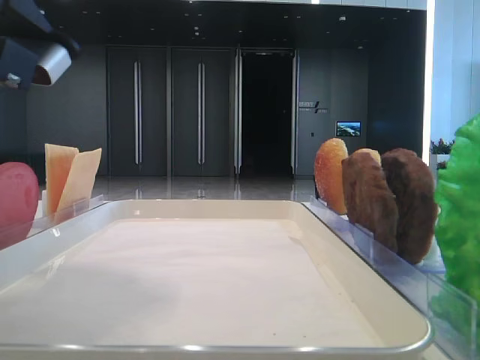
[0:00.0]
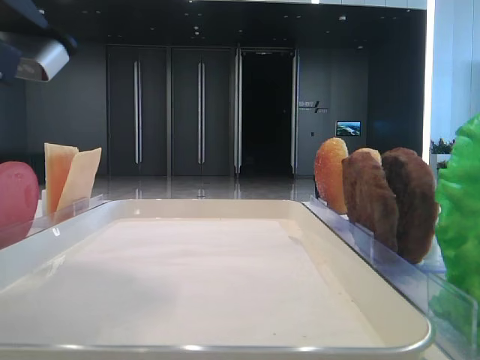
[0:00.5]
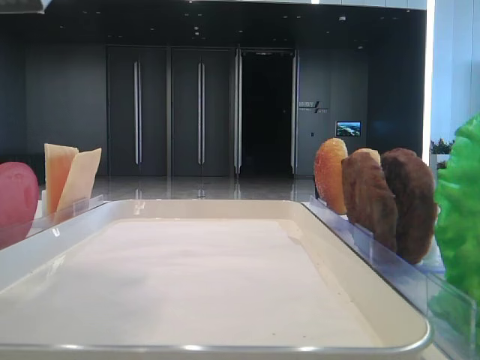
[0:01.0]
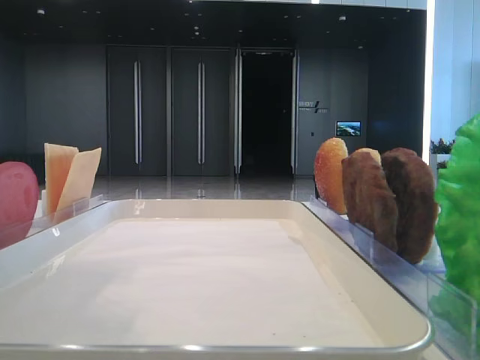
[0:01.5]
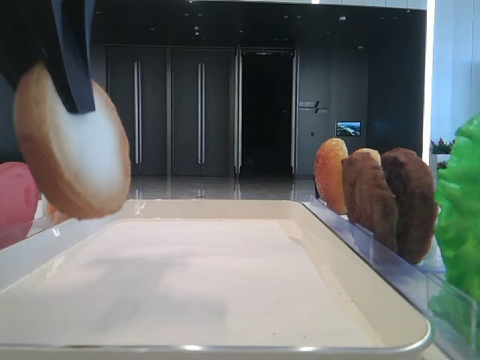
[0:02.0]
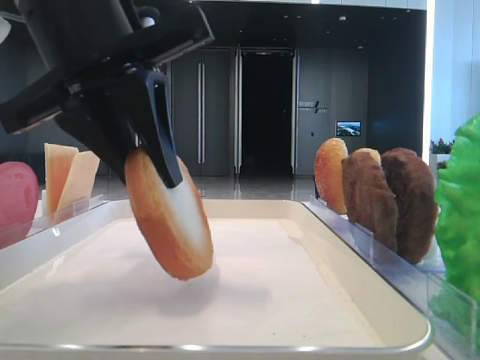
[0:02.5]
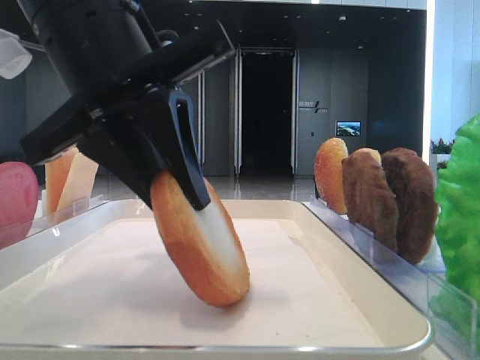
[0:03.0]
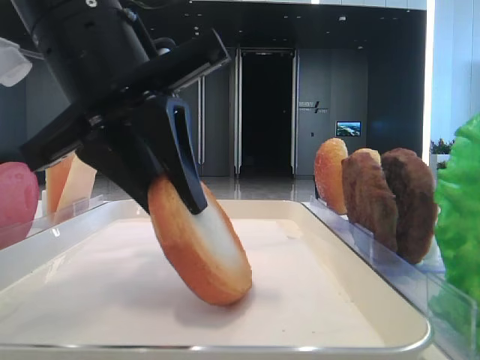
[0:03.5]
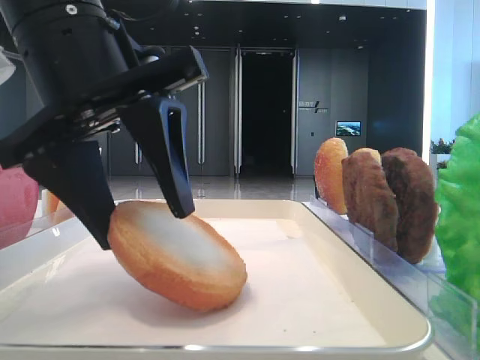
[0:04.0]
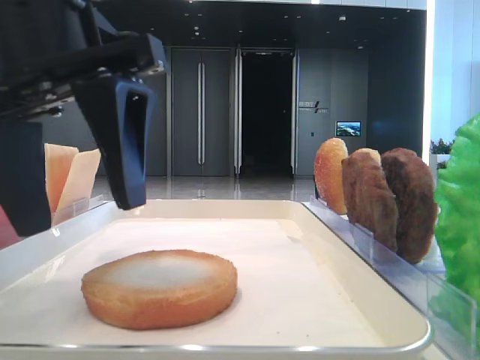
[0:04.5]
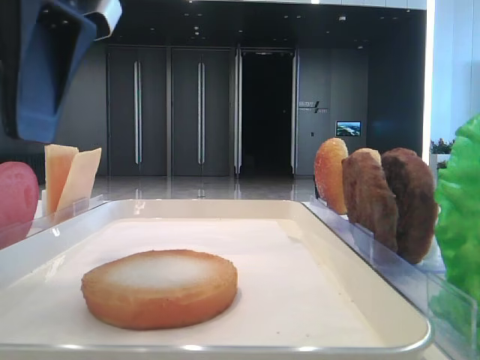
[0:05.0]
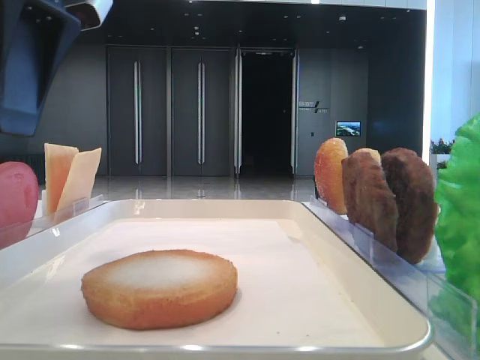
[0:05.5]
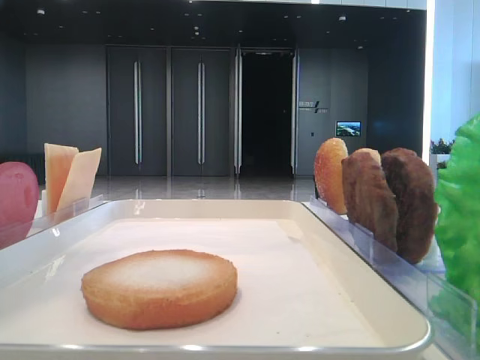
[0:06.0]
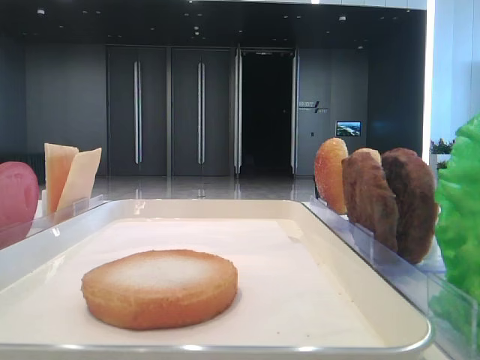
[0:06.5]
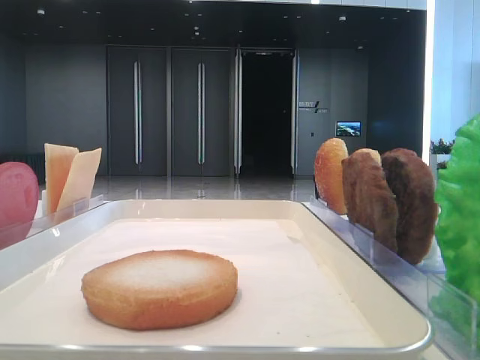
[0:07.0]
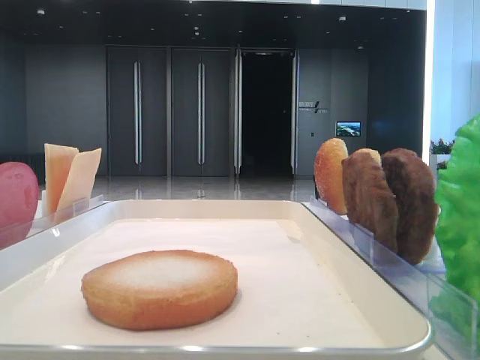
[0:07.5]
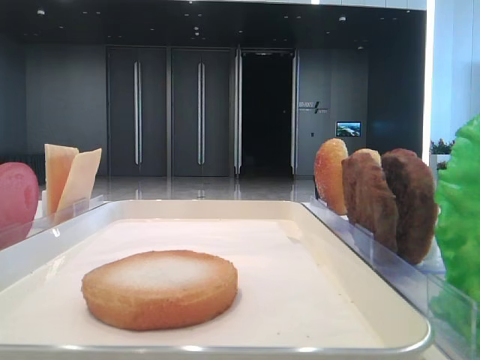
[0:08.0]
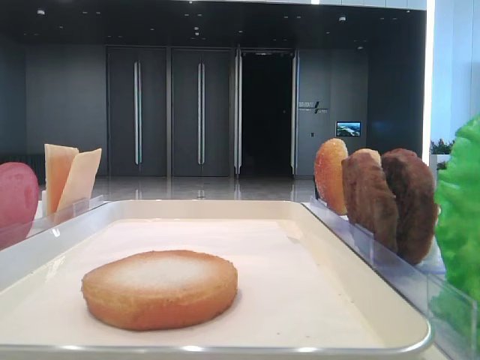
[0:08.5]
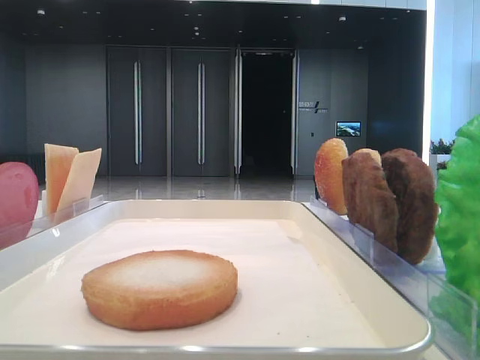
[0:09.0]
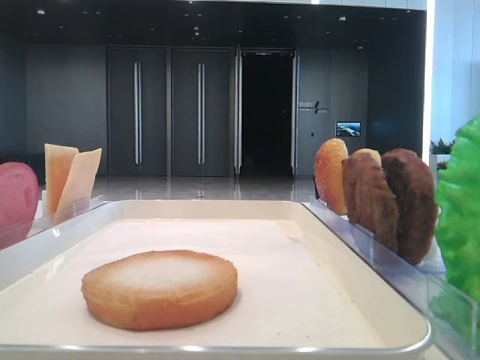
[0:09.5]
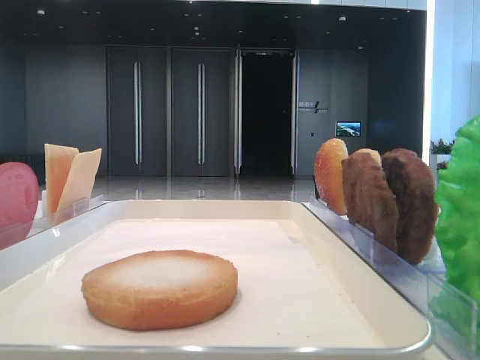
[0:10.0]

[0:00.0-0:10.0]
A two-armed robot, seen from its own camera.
Step, 0:00.5 to 0:04.0: Place the bread on the tray with the left hand.
0:00.0 to 0:02.0: The left gripper heads upward, covering roughly 5 cm.
0:02.0 to 0:04.0: The left gripper is displaced downward by some 10 cm, and opens its fingers.
0:04.0 to 0:06.0: The left gripper is displaced upward and to the left by roughly 15 cm.
0:06.0 to 0:08.0: The left gripper heads backward and to the left, covering about 30 cm.

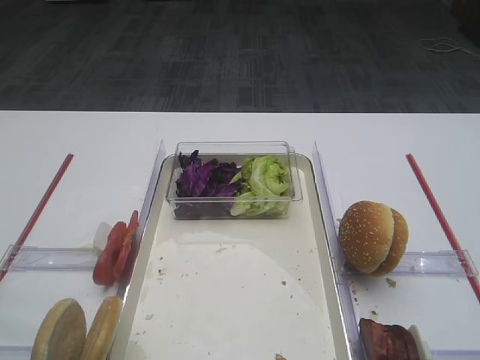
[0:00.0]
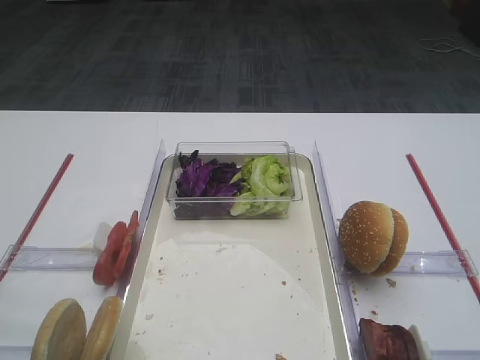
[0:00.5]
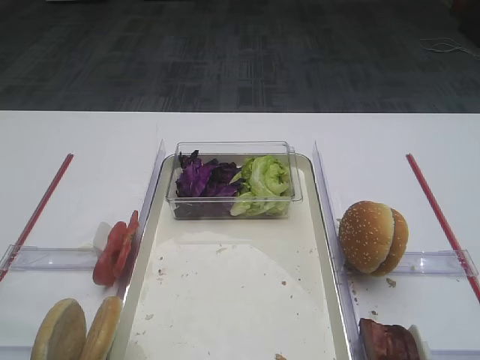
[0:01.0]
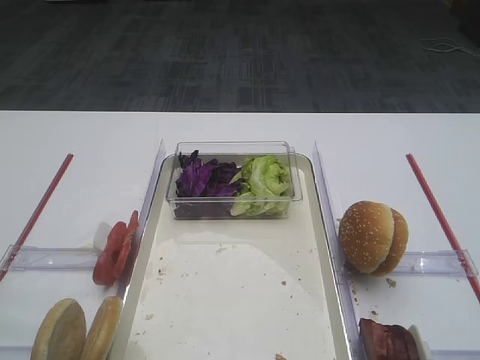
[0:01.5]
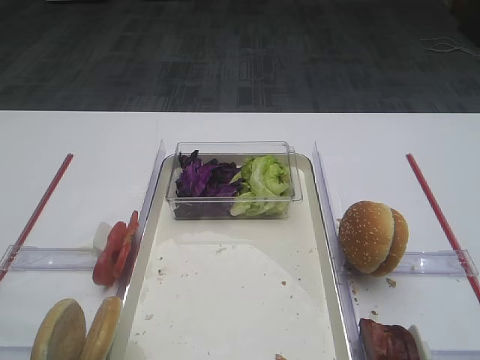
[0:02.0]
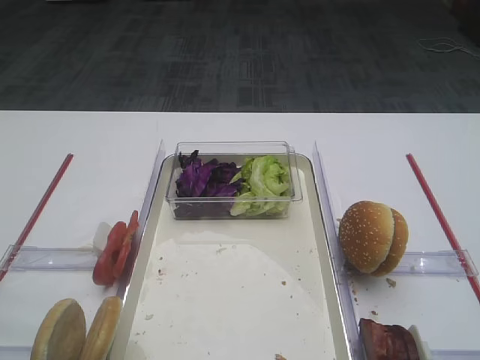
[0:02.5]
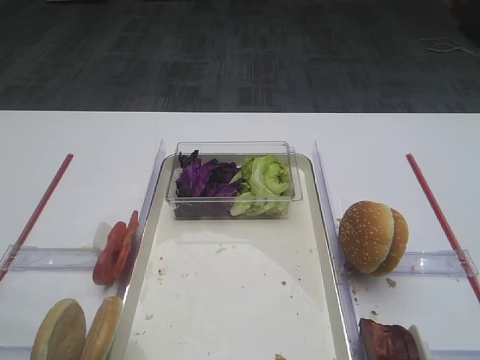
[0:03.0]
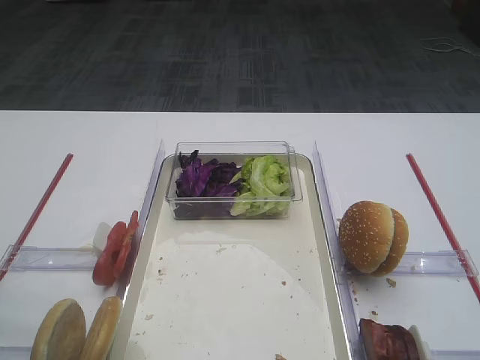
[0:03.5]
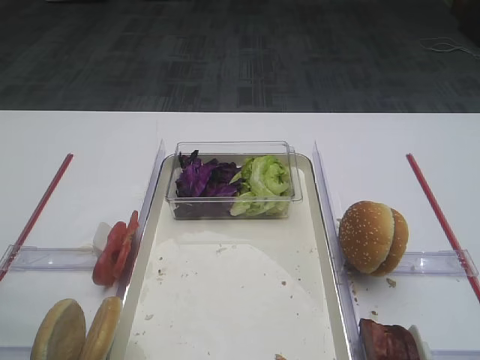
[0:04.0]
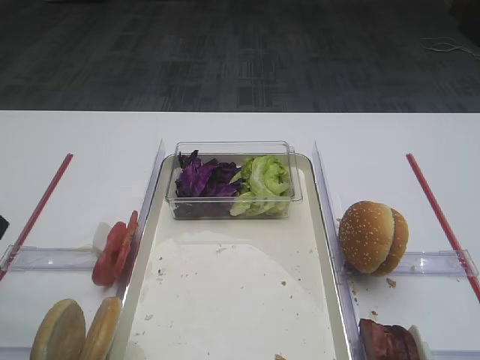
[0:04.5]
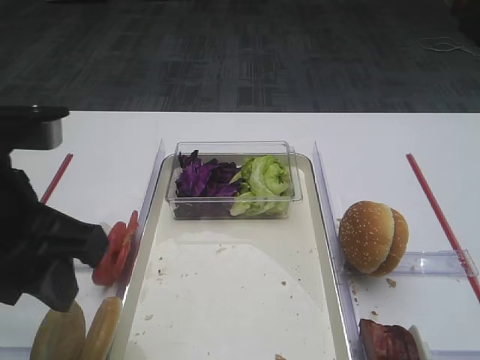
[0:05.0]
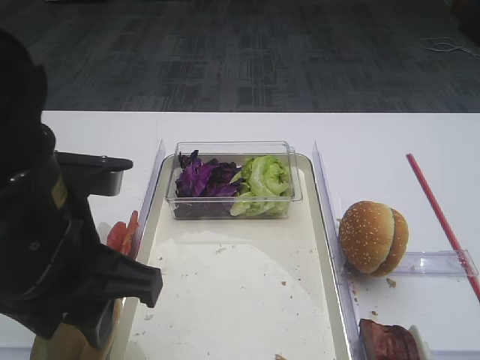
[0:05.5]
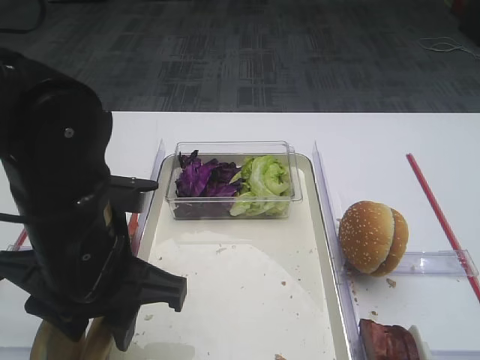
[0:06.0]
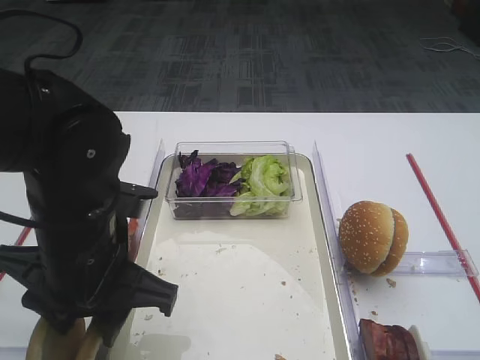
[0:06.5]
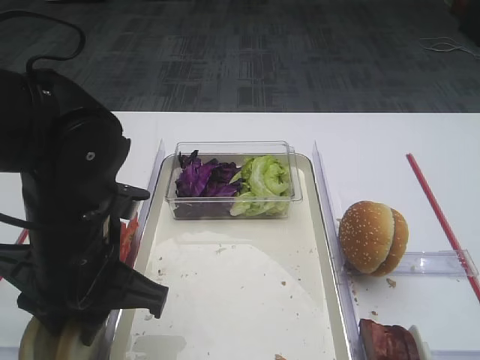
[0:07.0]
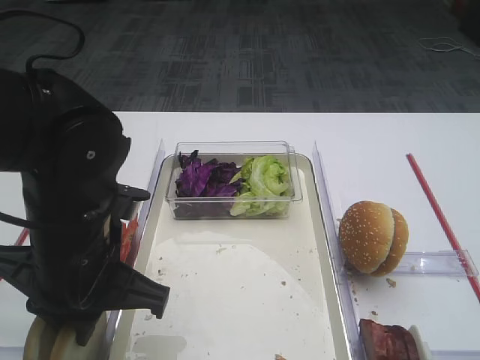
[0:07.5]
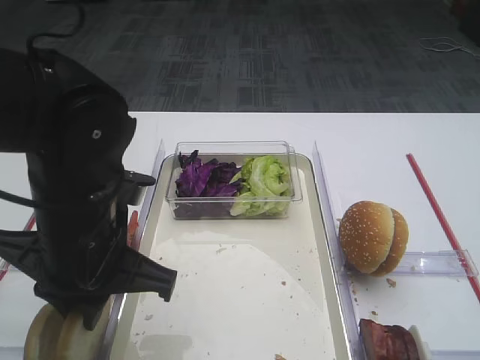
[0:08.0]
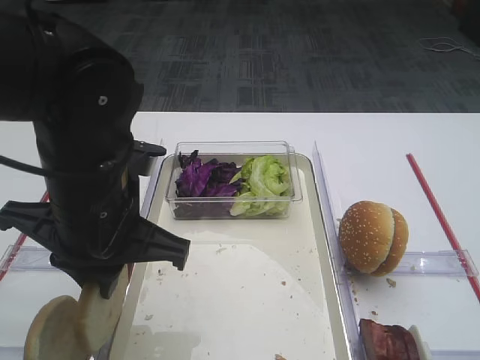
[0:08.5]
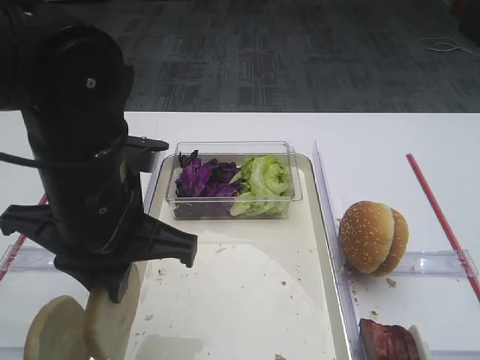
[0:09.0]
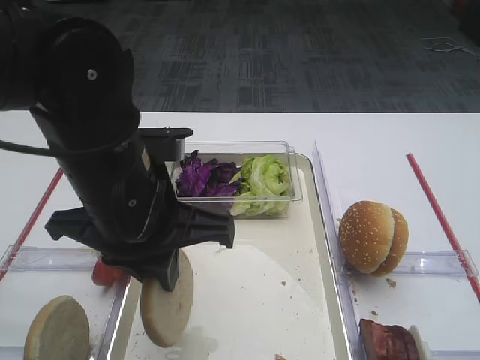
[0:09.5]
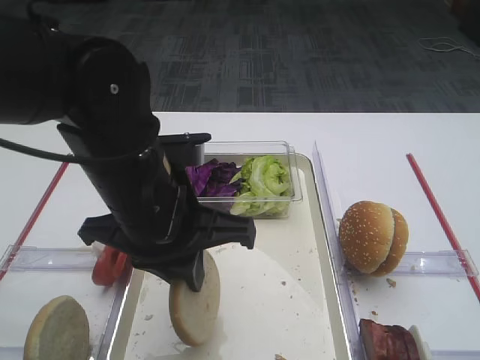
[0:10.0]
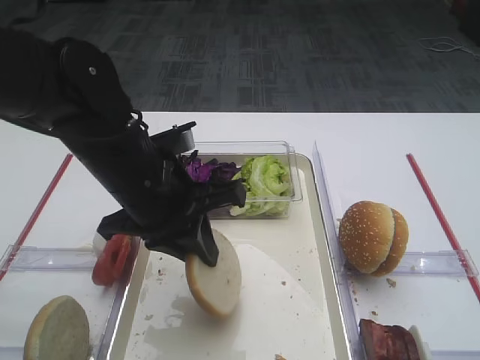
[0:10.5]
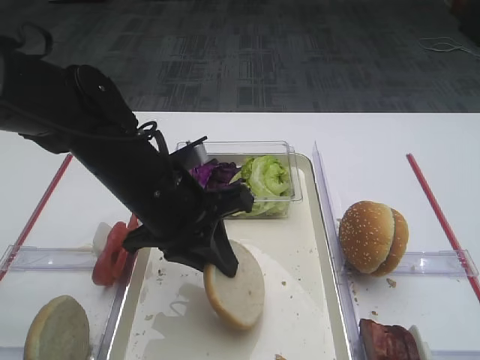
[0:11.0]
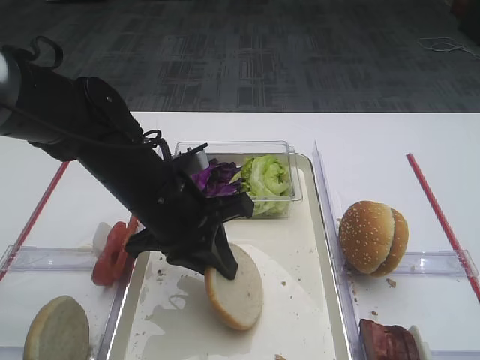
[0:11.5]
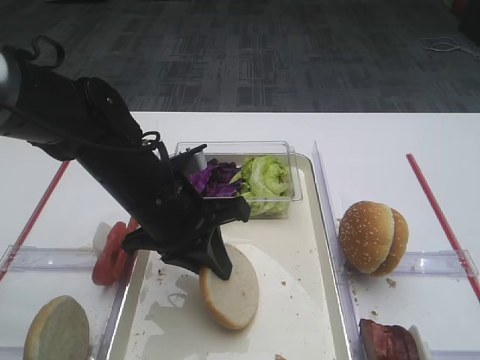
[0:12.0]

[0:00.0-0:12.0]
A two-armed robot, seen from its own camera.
Step, 0:00.0 to 0:08.5: Pick up the bread slice with the left gripper.
0:04.0 to 0:06.0: The left gripper travels to the right and downward by roughly 15 cm.
0:06.0 to 0:08.0: The left gripper closes its fingers.
0:08.0 to 0:10.0: The left gripper shifts by approximately 5 cm.
0:10.0 to 0:12.0: The left gripper goes approximately 10 cm downward and forward.

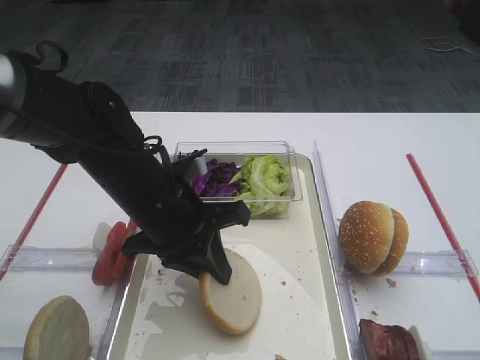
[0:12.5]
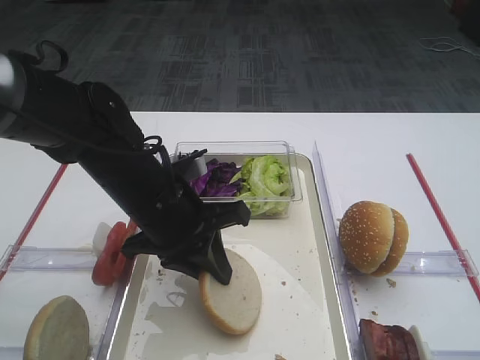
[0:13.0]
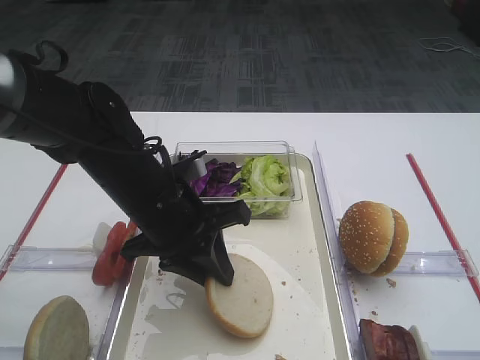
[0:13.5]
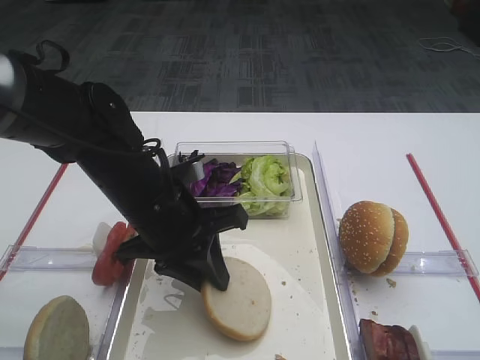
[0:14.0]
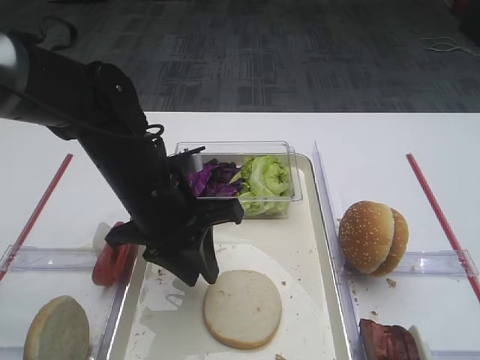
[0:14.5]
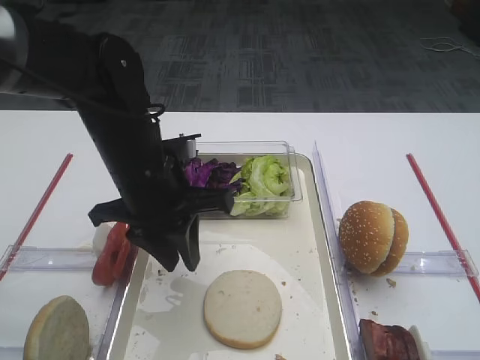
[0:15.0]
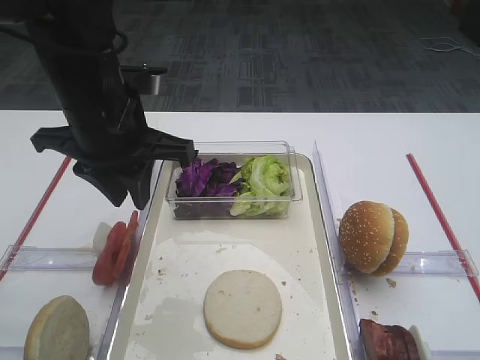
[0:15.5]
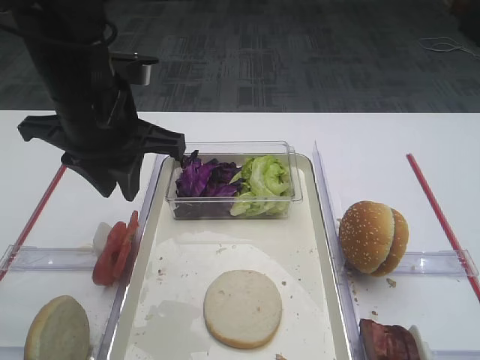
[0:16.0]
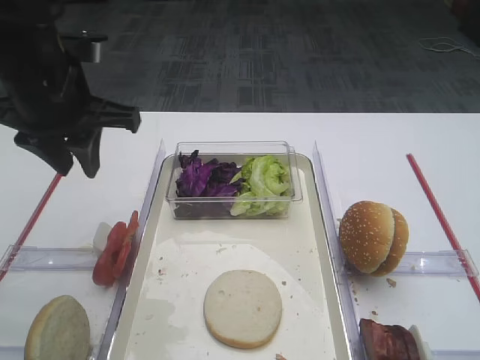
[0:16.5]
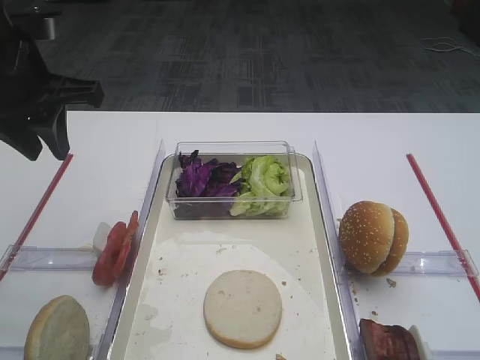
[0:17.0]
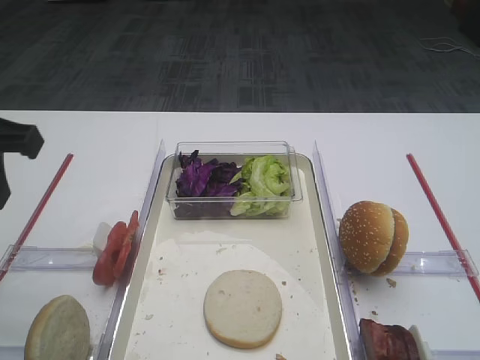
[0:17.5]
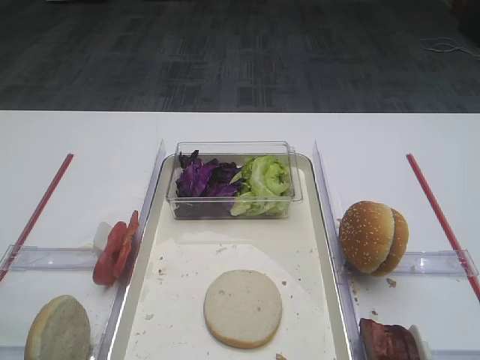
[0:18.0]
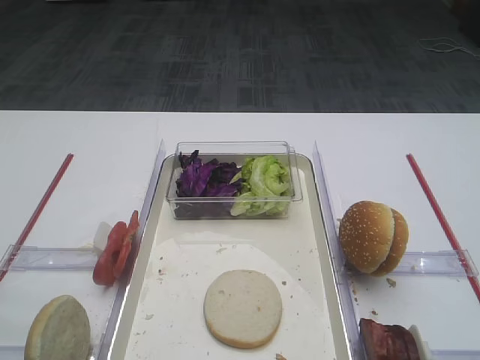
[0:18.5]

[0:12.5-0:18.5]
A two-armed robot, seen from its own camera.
Step, 0:12.5 to 0:15.0: Place the bread slice on the tray with the left gripper.
0:12.5 to 0:14.5: The grippers move only a little.
0:14.5 to 0:16.5: The left gripper is displaced upward and to the left by some 15 cm.
0:16.5 to 0:18.5: The left gripper travels backward by about 30 cm.
